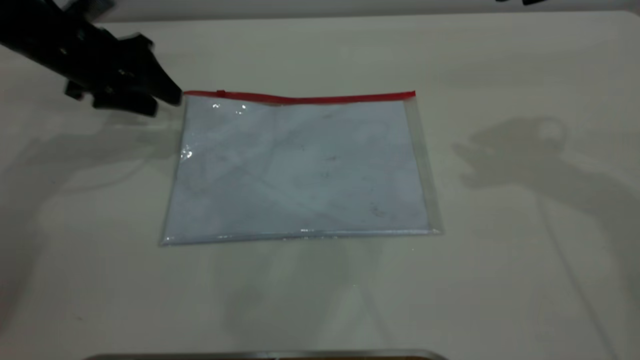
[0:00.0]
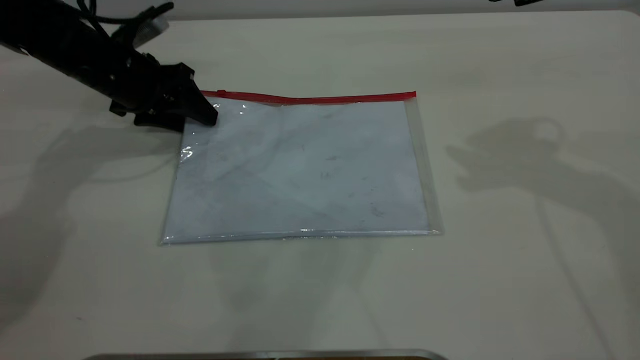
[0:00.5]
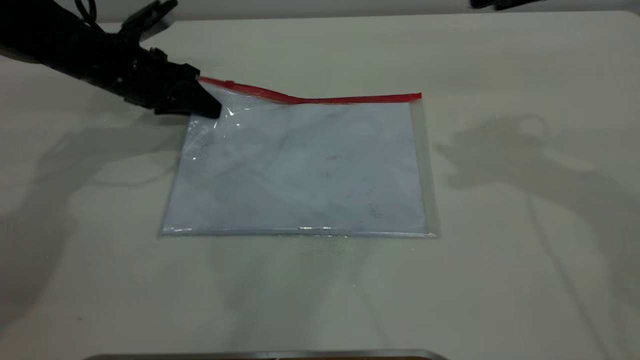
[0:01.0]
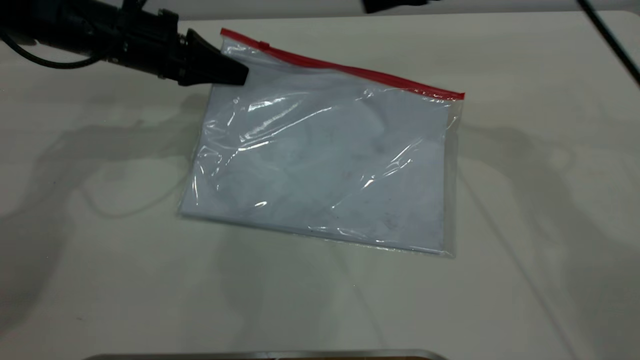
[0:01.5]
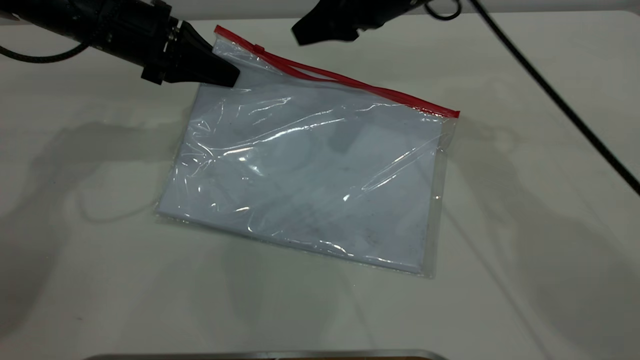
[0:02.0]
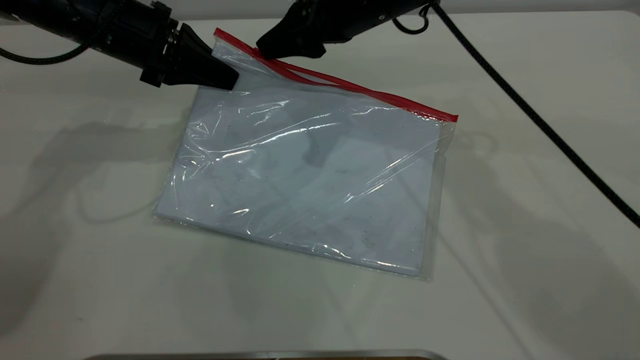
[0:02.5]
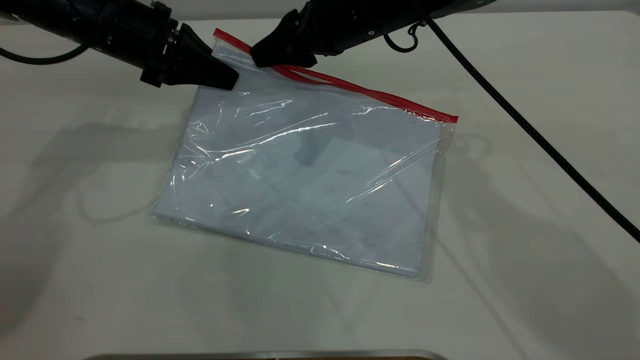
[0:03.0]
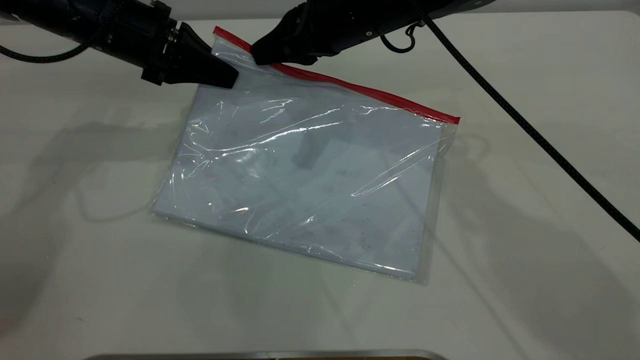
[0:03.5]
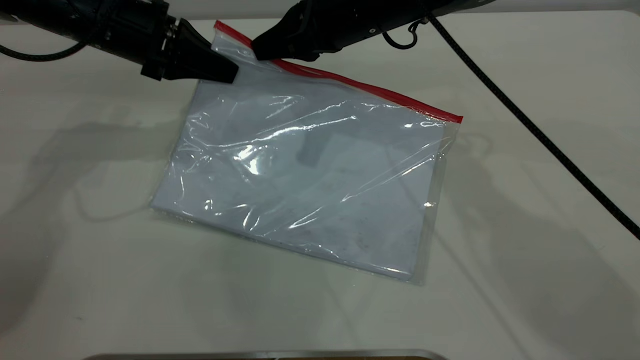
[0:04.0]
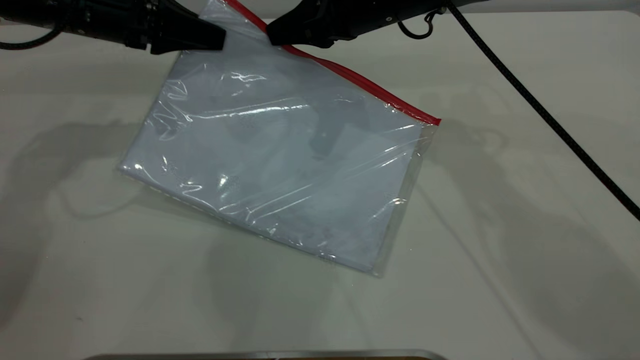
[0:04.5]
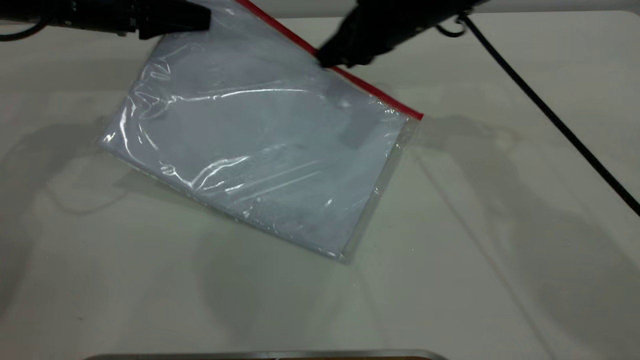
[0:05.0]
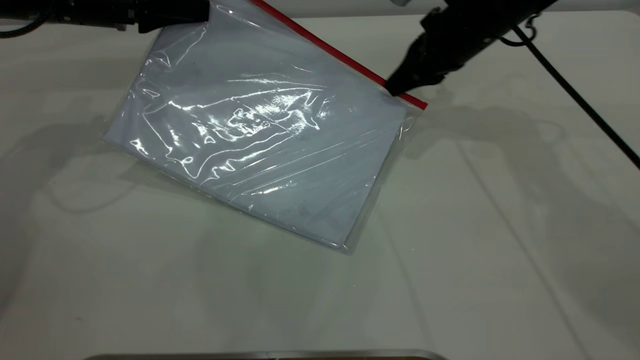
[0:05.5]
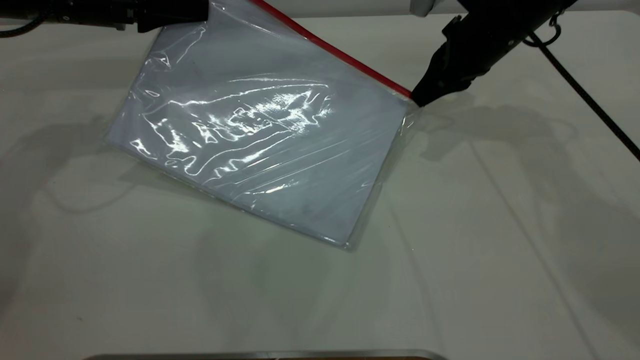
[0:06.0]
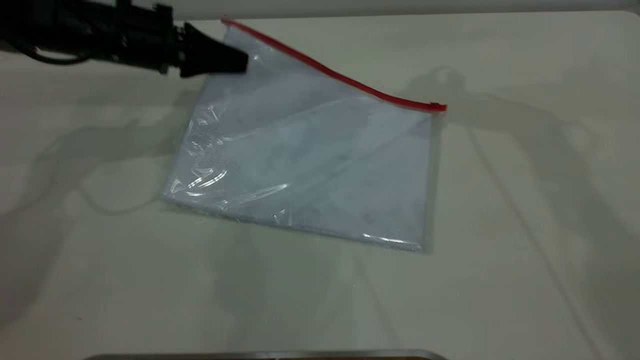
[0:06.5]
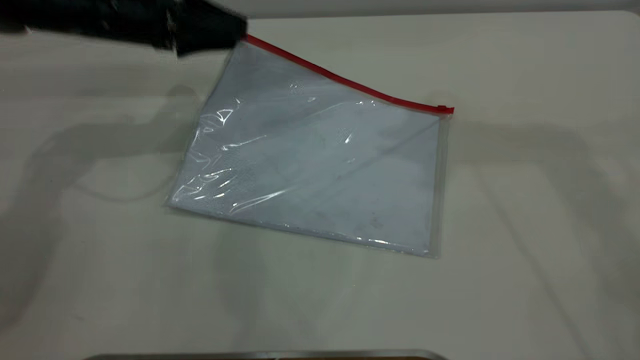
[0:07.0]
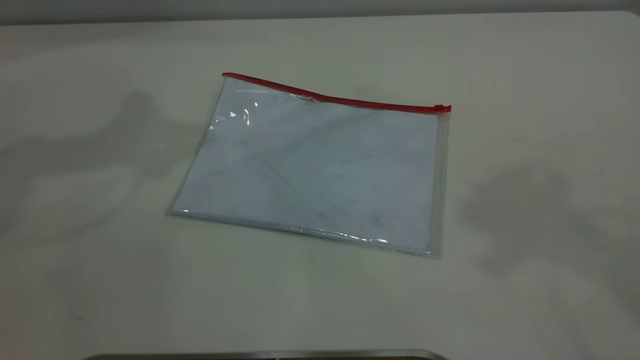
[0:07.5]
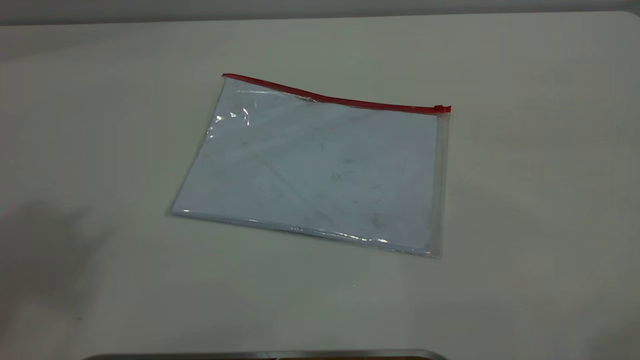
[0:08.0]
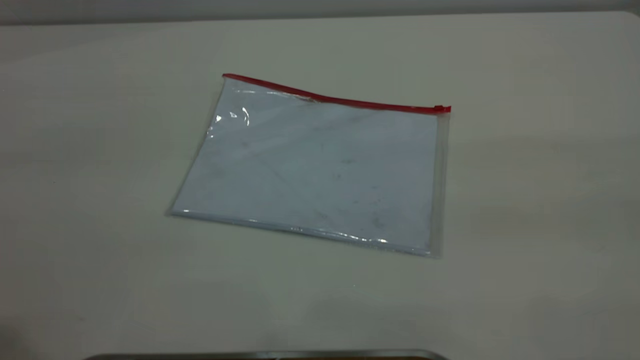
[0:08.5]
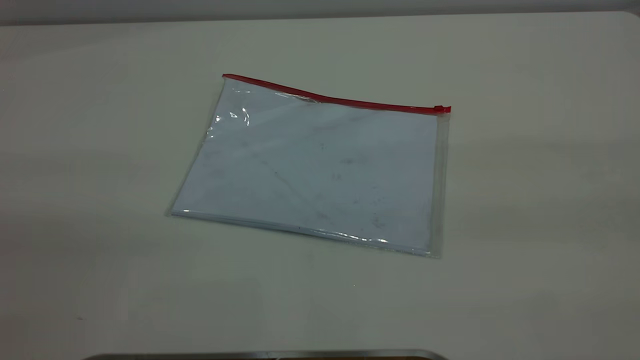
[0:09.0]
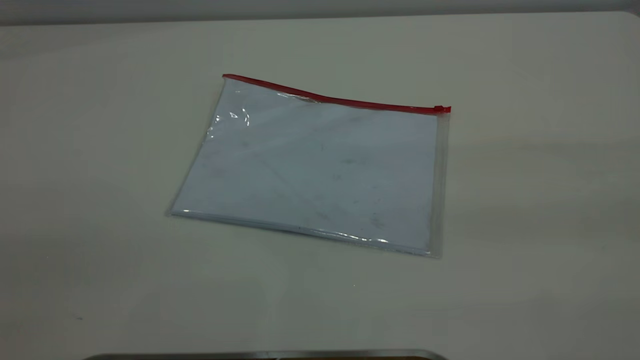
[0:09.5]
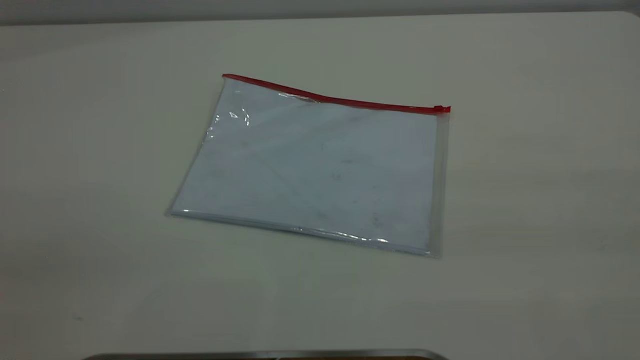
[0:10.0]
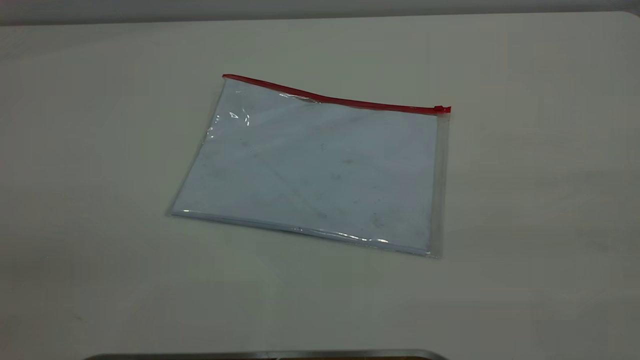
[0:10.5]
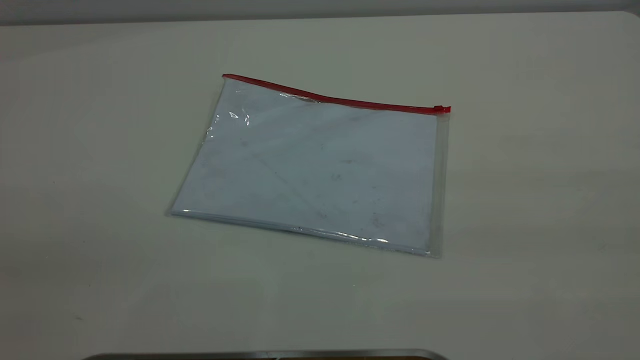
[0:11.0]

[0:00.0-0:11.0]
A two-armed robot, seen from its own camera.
Step, 0:01.5 to 0:06.0: Pulling up the zipper on the transparent plastic bag with the right gripper to close it.
Step, 0:06.5 to 0:07.0: Place the transparent plastic bag.
0:00.0 to 0:02.0: The right gripper moves to the left, downward and forward, about 20 cm, and closes; the left gripper moves to the right, roughly 5 cm, and closes up.
0:02.0 to 0:03.5: The right gripper closes its fingers.
0:03.5 to 0:05.5: The right gripper goes about 15 cm to the right.
0:05.5 to 0:07.5: The right gripper shifts about 50 cm upward and backward, and opens its fingers. Meanwhile the left gripper goes roughly 25 cm upward, and opens its fingers.
